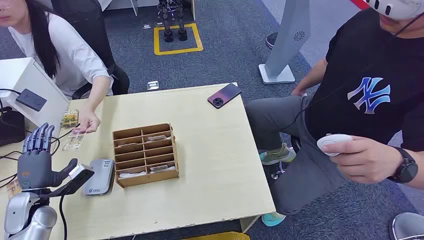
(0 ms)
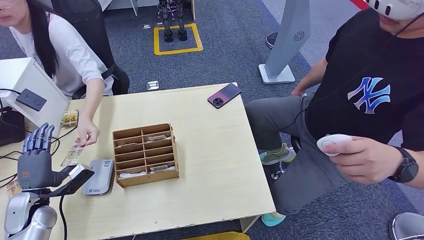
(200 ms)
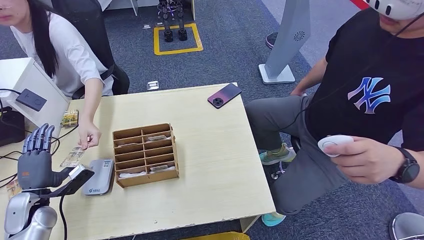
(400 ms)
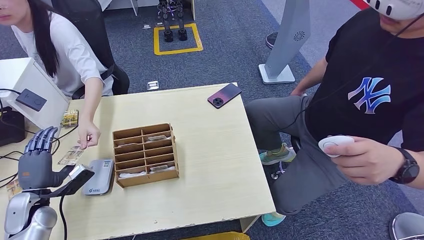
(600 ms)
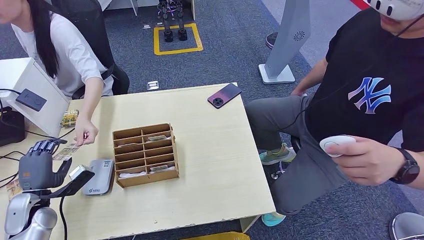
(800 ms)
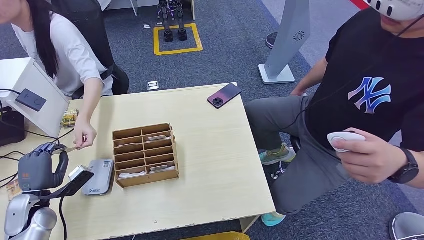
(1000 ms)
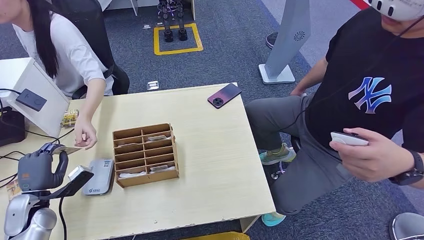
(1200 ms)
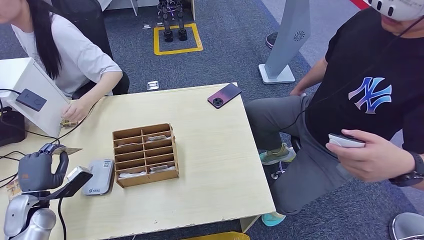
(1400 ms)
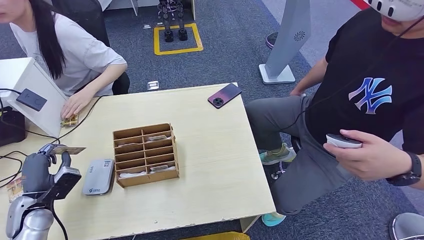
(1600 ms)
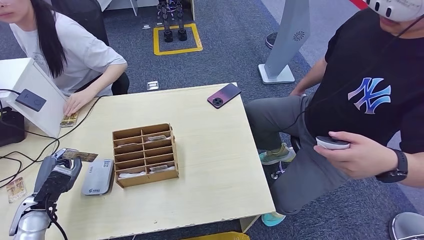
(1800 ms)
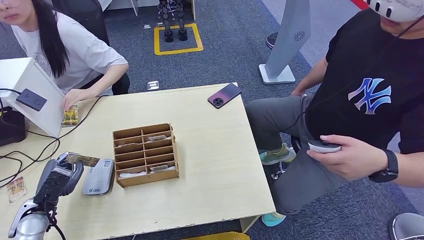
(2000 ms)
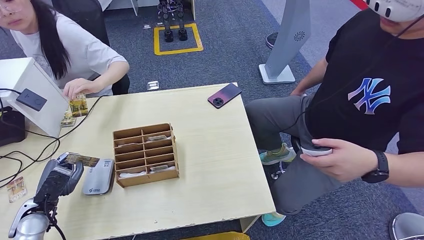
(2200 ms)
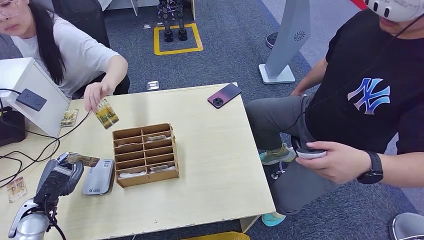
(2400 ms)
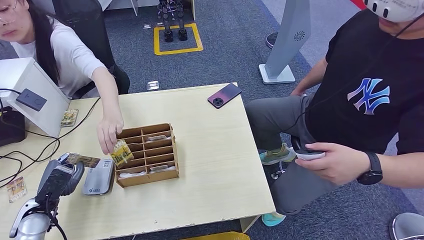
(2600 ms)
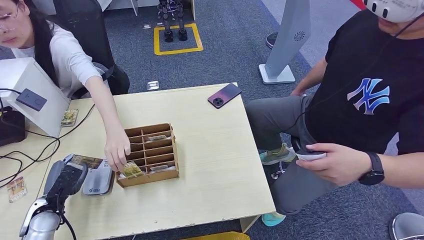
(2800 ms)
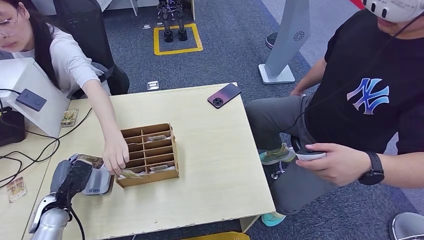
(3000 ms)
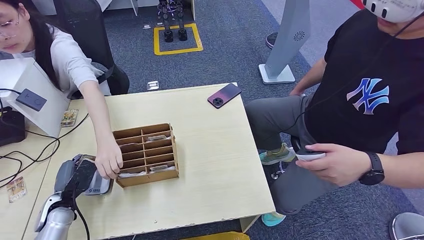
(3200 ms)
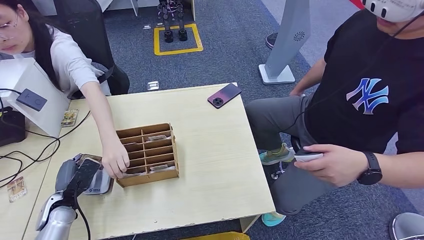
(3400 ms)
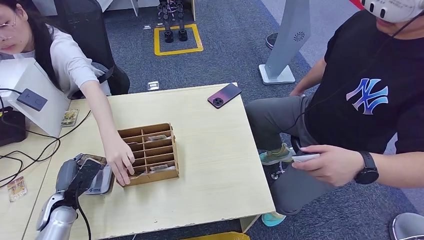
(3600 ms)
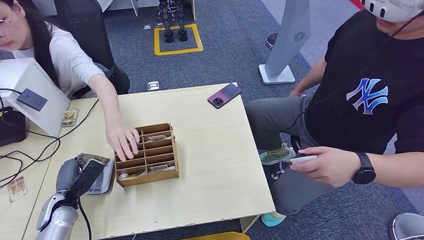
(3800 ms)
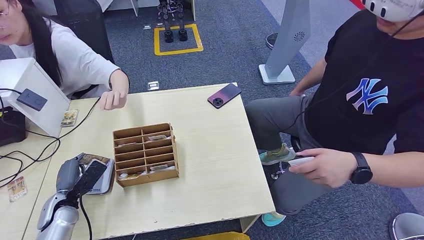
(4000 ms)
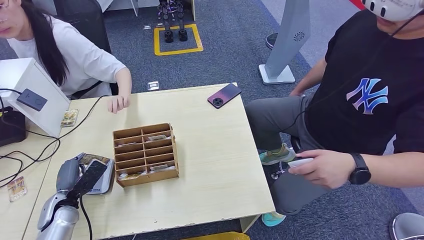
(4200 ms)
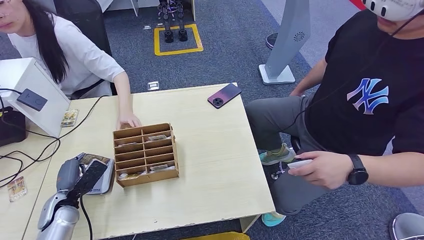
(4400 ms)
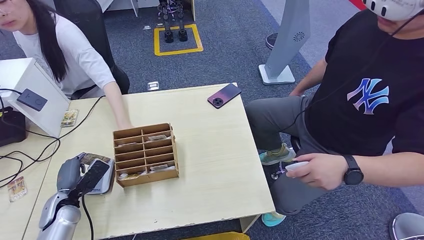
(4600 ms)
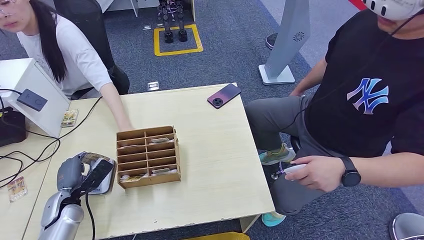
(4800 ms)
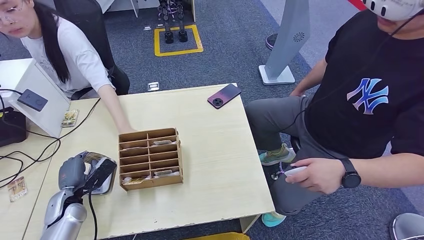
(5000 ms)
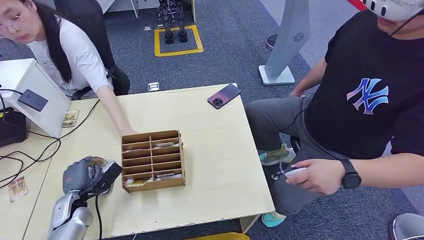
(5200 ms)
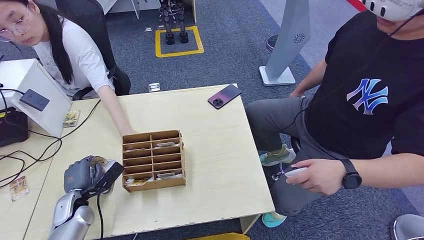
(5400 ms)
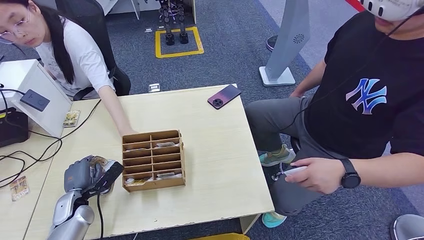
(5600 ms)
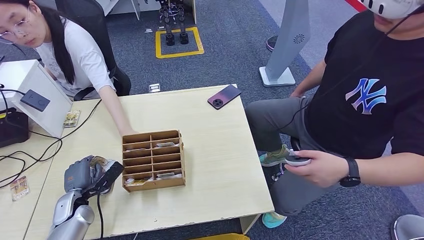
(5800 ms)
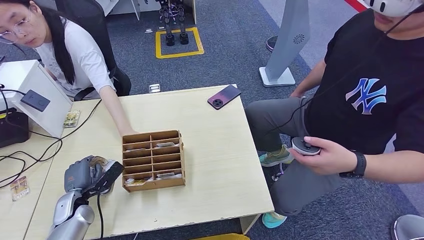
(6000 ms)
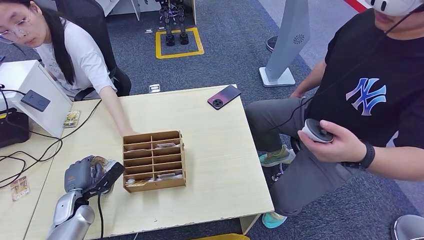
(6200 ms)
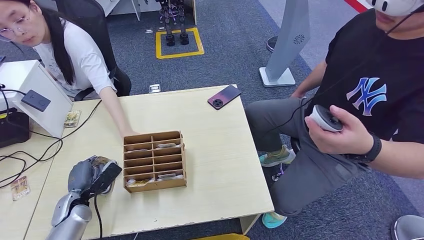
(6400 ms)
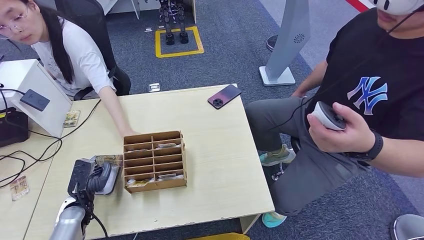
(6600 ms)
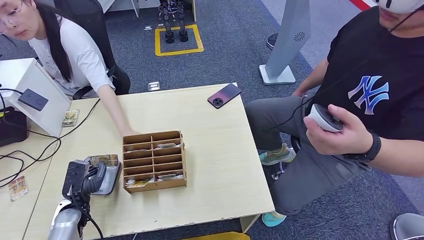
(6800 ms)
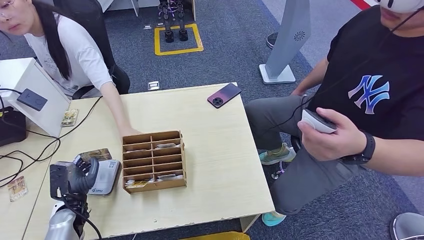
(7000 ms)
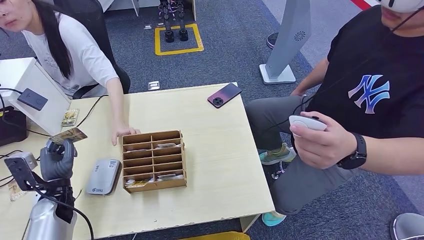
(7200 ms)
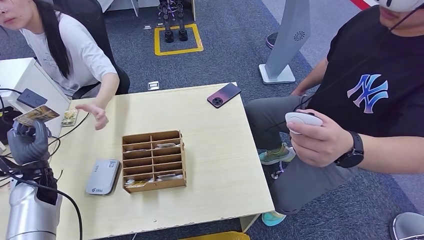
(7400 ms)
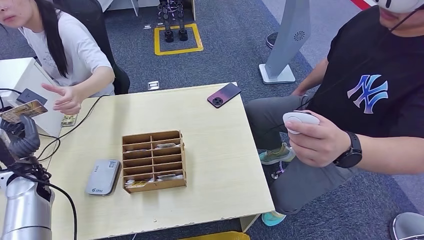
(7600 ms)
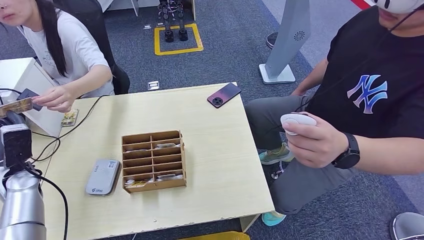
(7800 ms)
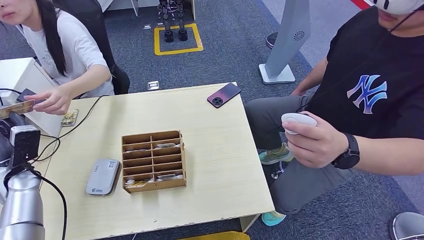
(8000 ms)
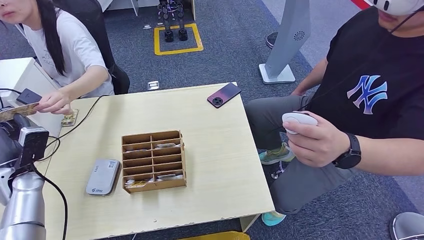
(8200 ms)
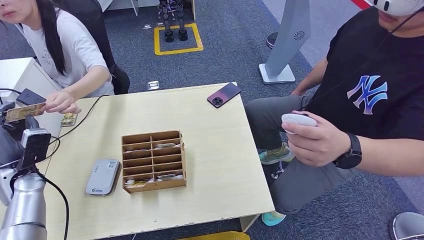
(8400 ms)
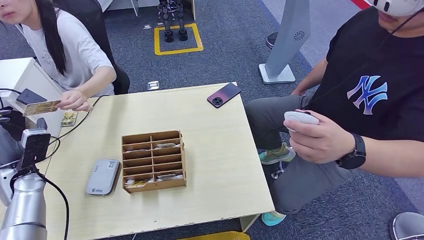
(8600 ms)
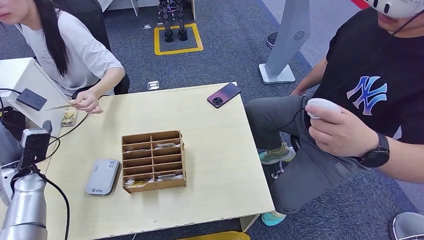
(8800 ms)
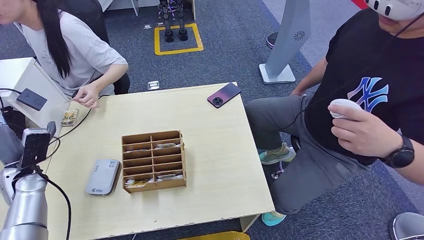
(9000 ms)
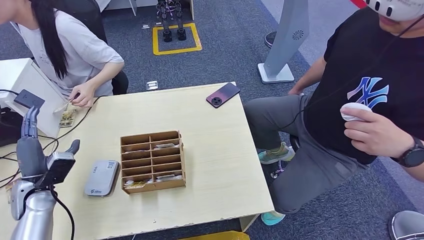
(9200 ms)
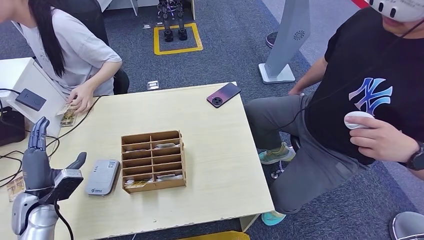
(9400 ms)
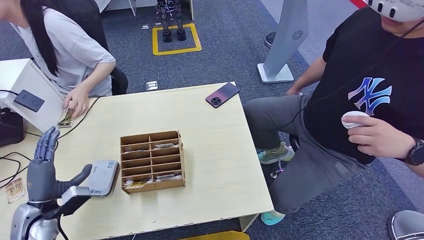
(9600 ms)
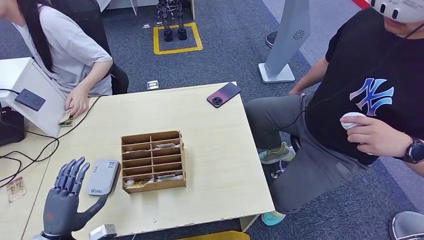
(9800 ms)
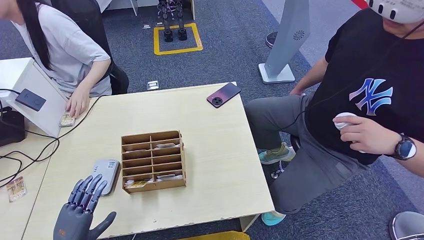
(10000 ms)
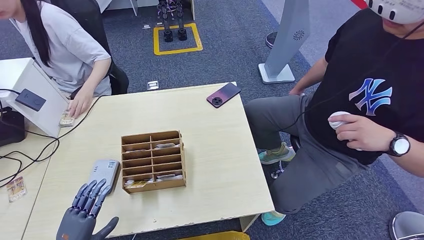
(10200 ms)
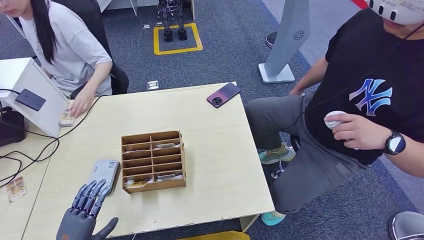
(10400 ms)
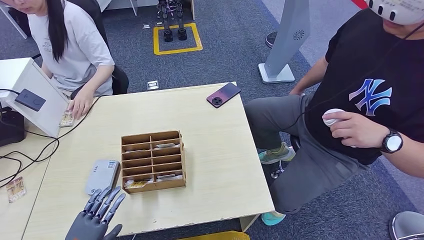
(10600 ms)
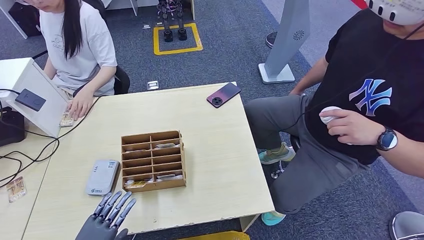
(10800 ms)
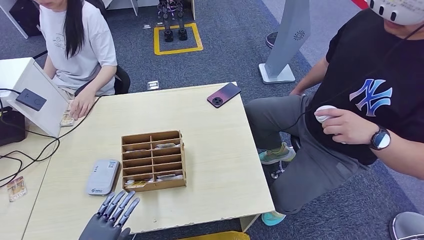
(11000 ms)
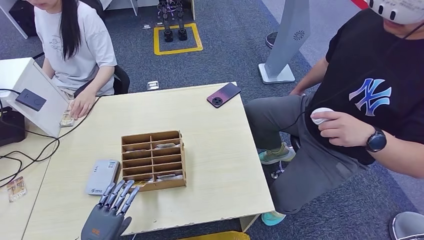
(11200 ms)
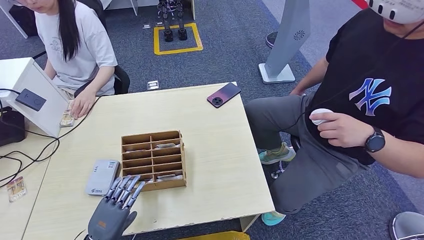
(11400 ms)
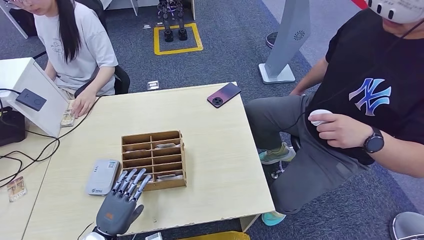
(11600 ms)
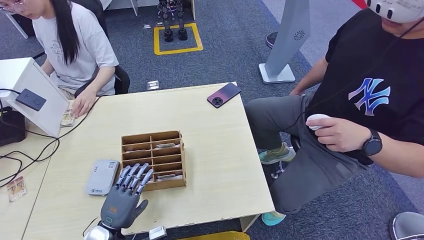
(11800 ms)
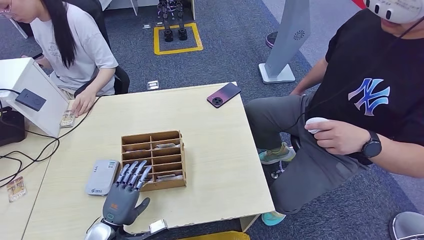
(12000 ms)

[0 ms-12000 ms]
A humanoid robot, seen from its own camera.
Step, 0 ms to 1400 ms: Take the ID card from the person's hand.
Step, 1600 ms to 3800 ms: Place the ID card on the card reader.
Step, 4000 ms to 9200 ms: Hand the ID card to the person.
3000 ms to 4400 ms: The hands make only small movements.
9000 ms to 10400 ms: The left hand moves backward, downward and to the right, roughly 25 cm.
10400 ms to 12000 ms: The left hand goes roughly 10 cm to the right and forward.

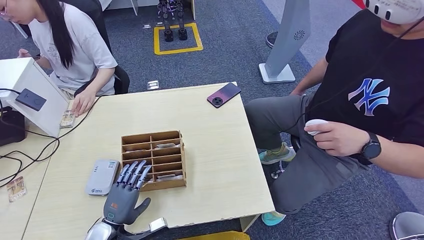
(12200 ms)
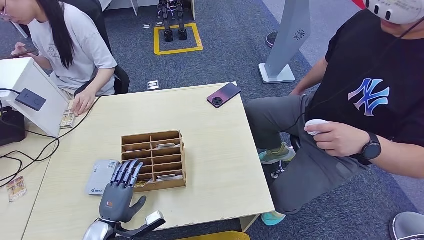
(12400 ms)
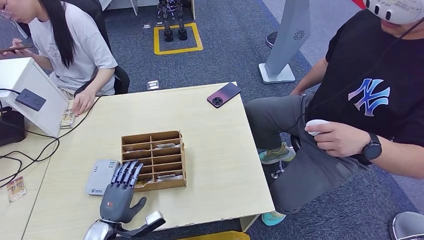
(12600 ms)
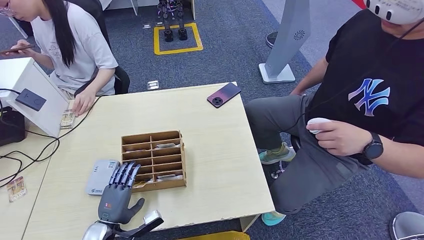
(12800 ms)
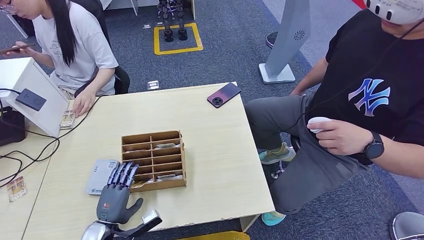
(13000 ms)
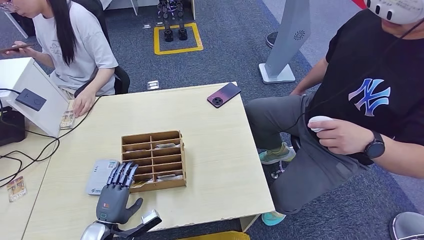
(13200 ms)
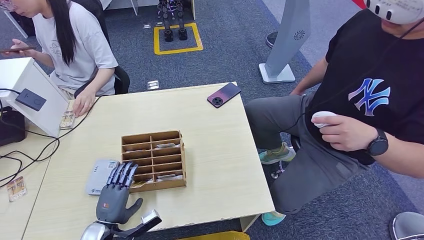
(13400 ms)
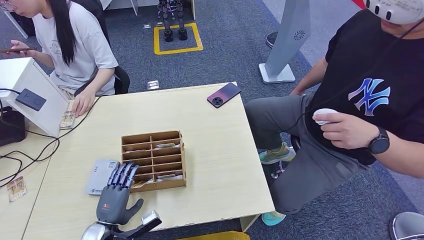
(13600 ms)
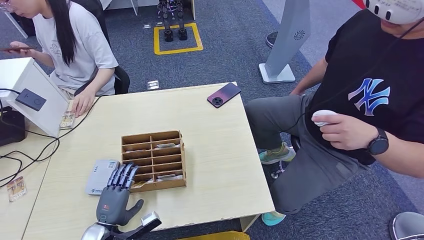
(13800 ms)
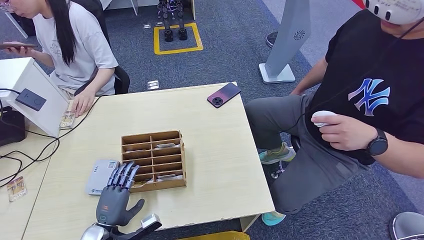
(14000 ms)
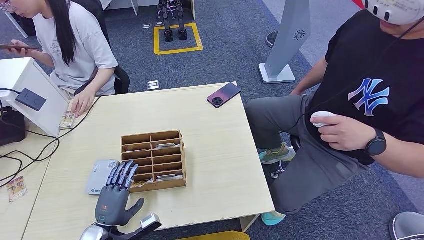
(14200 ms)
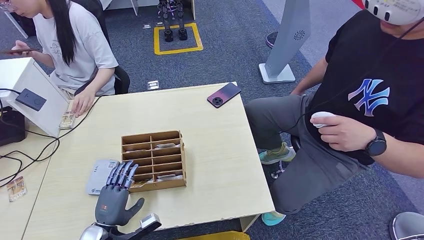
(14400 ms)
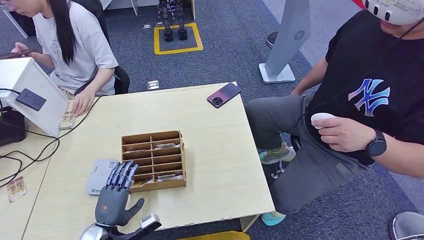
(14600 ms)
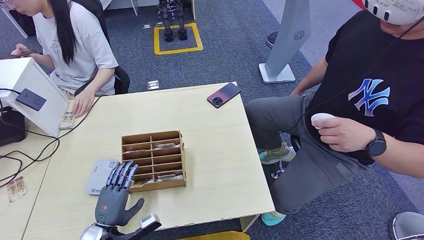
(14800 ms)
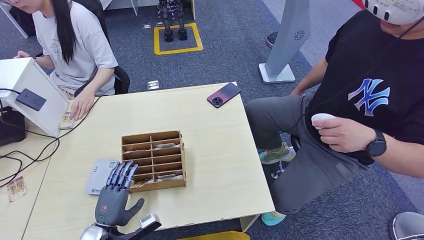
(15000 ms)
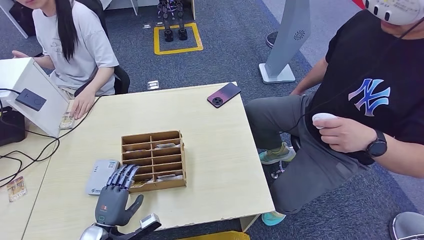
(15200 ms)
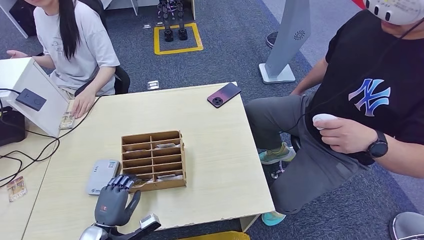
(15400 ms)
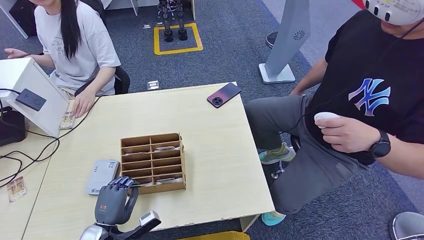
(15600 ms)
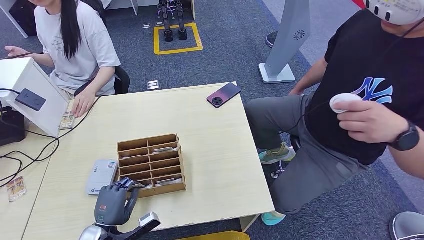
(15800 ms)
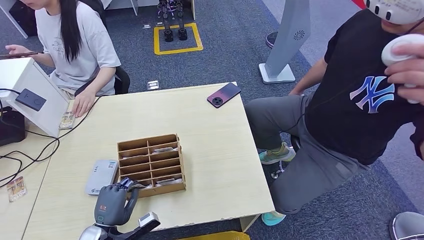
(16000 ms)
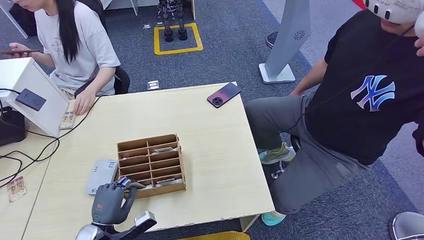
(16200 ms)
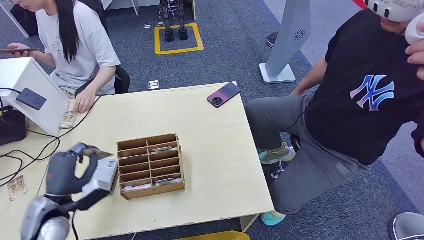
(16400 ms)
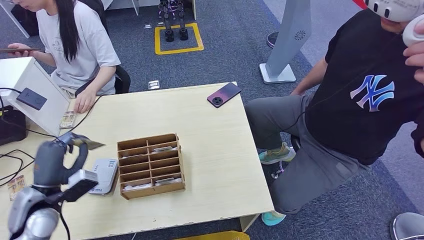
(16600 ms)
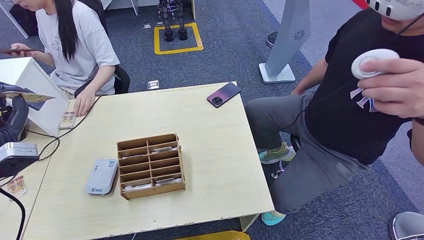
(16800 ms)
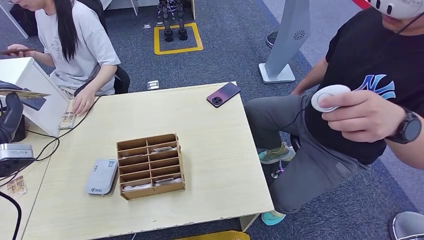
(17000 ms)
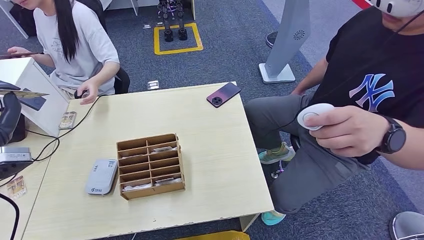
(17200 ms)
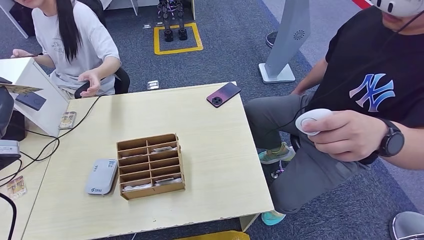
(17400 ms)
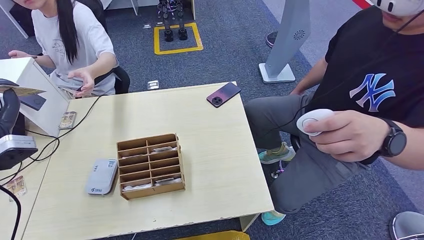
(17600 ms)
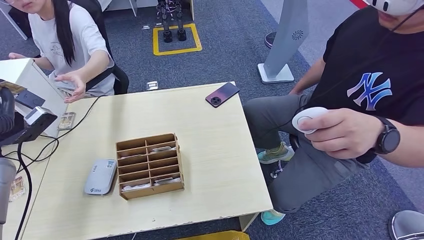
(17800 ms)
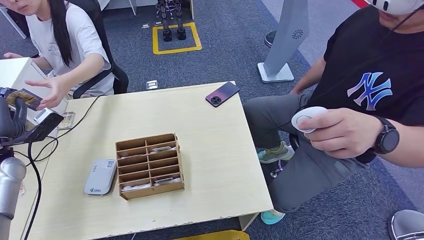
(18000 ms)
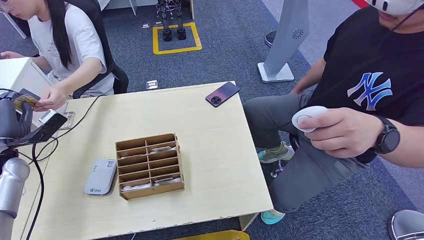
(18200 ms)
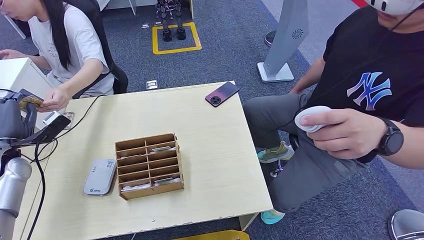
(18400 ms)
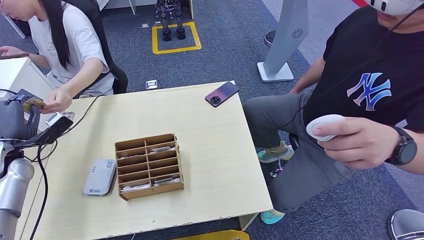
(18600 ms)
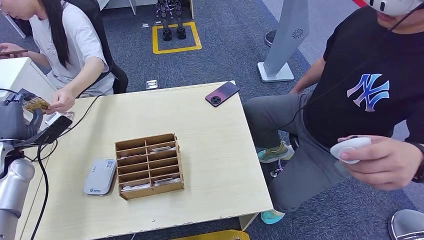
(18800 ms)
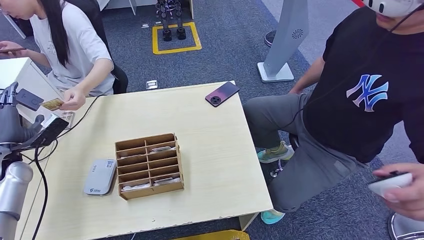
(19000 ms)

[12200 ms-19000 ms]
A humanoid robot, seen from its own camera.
Step, 12200 ms to 16400 ms: Pick up the room key from the key card box.
12200 ms to 15000 ms: The hands move only a little.
15000 ms to 16200 ms: Neither hand changes place.
16200 ms to 17600 ms: The left hand is displaced upward and to the left by about 30 cm.
